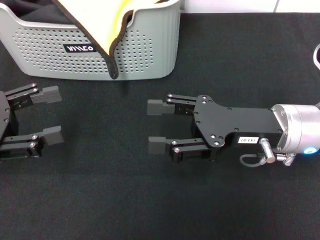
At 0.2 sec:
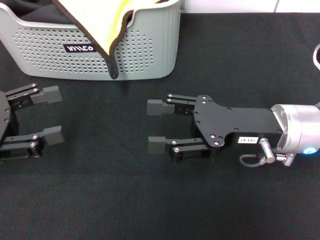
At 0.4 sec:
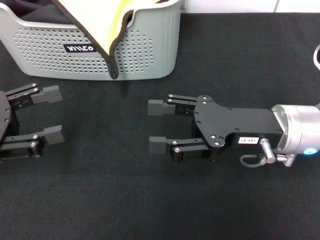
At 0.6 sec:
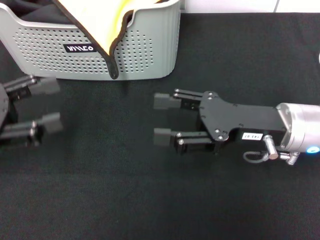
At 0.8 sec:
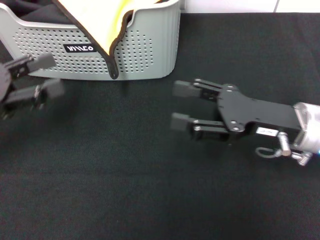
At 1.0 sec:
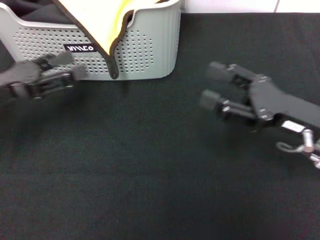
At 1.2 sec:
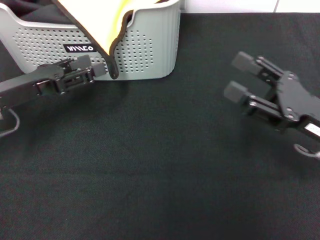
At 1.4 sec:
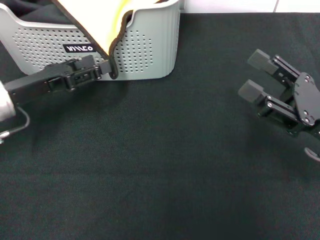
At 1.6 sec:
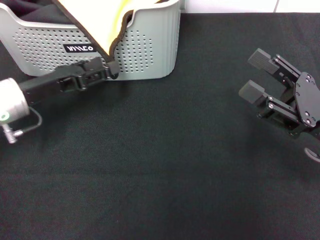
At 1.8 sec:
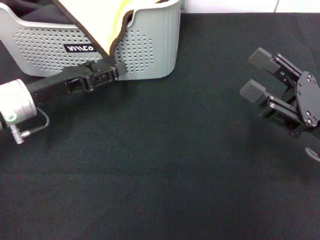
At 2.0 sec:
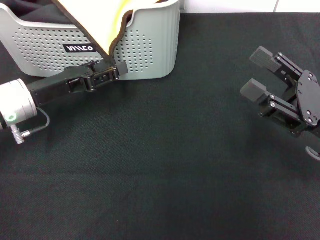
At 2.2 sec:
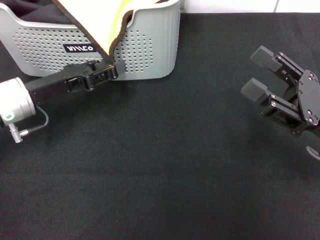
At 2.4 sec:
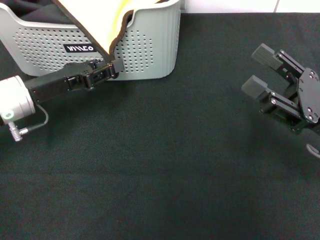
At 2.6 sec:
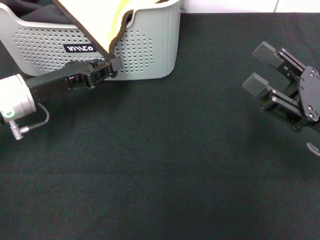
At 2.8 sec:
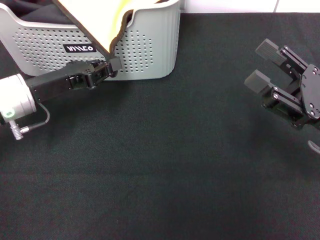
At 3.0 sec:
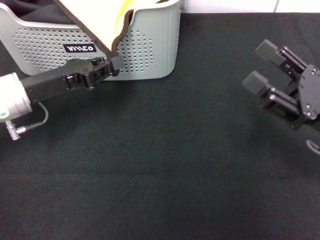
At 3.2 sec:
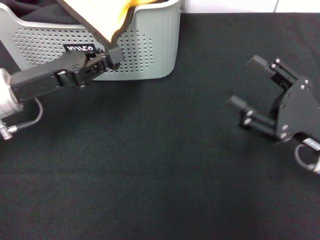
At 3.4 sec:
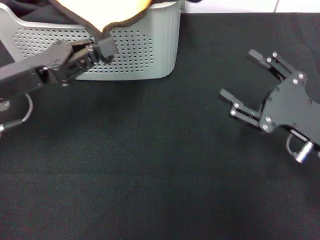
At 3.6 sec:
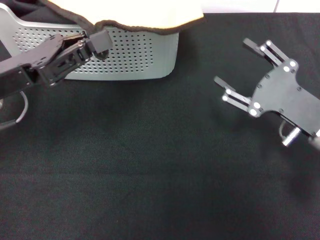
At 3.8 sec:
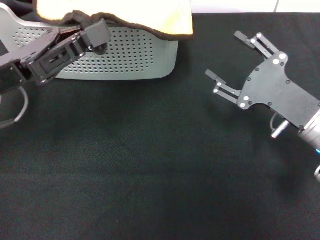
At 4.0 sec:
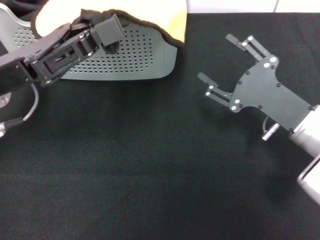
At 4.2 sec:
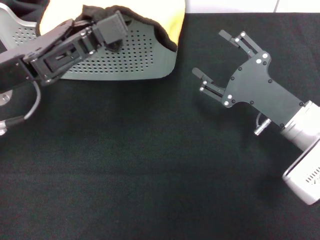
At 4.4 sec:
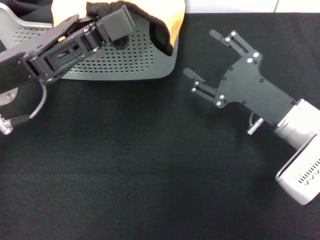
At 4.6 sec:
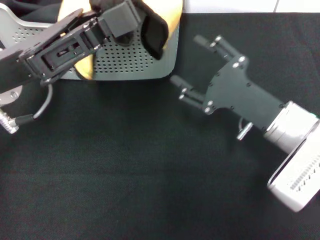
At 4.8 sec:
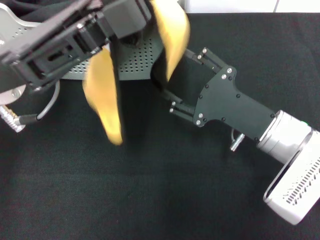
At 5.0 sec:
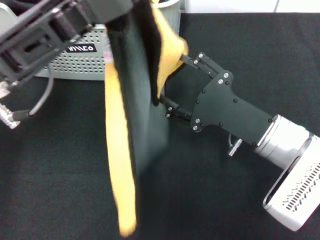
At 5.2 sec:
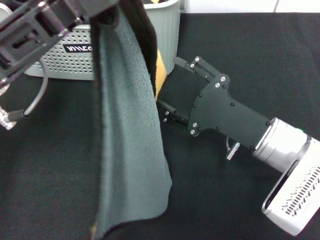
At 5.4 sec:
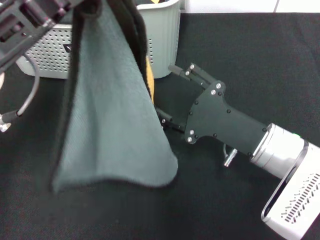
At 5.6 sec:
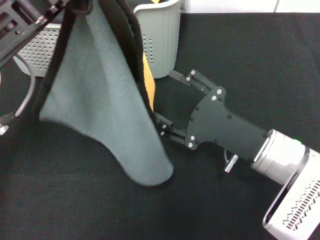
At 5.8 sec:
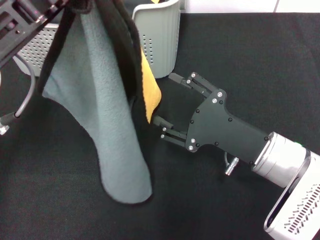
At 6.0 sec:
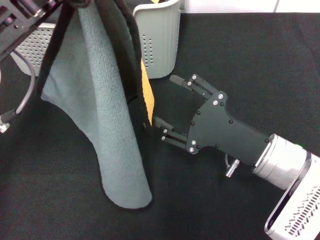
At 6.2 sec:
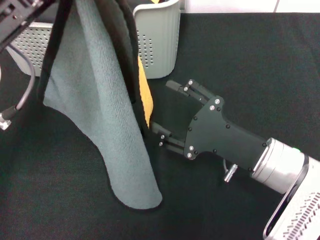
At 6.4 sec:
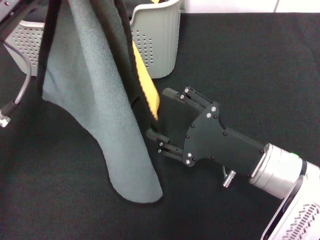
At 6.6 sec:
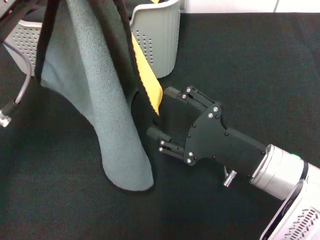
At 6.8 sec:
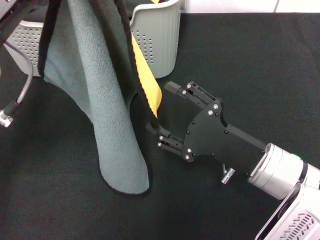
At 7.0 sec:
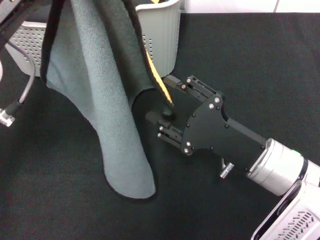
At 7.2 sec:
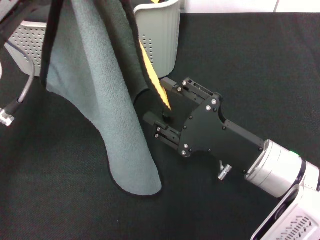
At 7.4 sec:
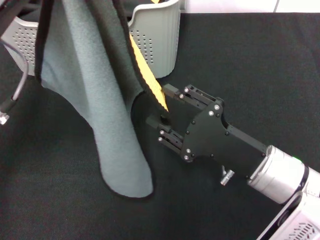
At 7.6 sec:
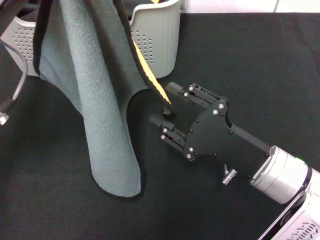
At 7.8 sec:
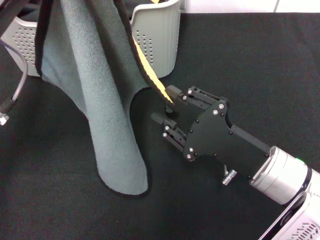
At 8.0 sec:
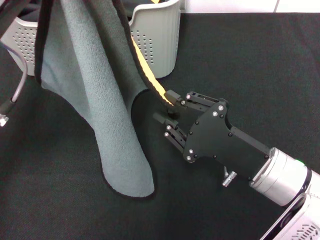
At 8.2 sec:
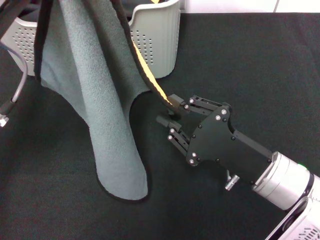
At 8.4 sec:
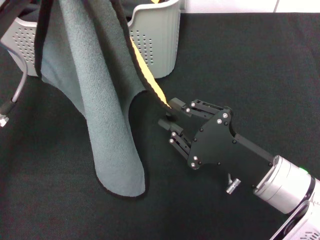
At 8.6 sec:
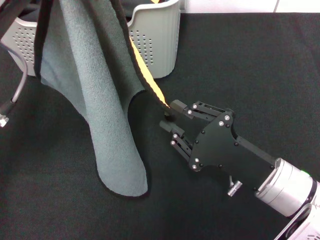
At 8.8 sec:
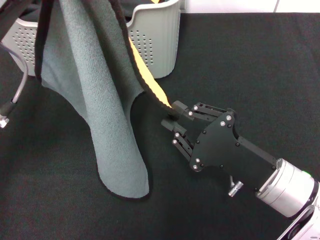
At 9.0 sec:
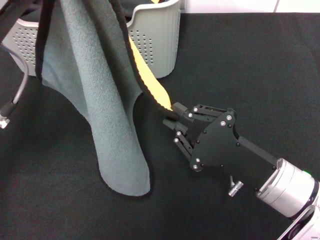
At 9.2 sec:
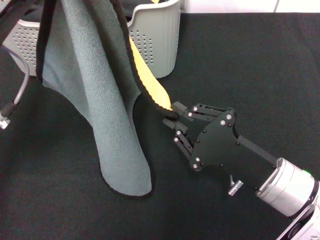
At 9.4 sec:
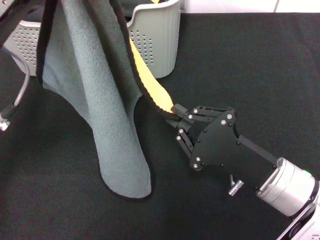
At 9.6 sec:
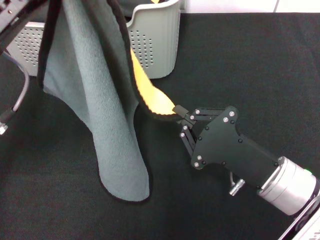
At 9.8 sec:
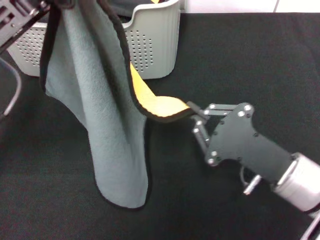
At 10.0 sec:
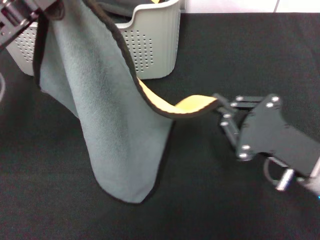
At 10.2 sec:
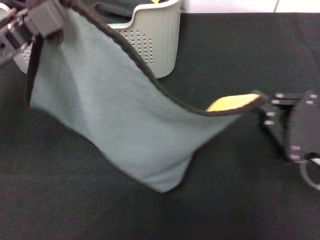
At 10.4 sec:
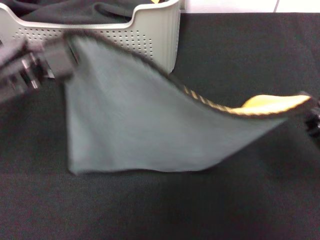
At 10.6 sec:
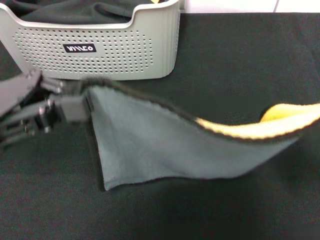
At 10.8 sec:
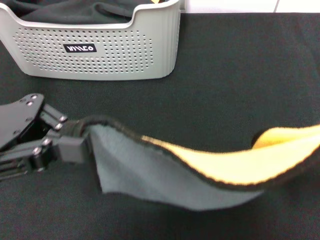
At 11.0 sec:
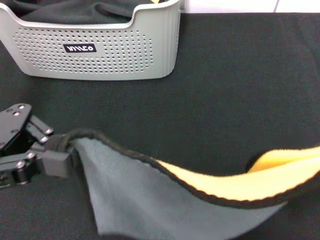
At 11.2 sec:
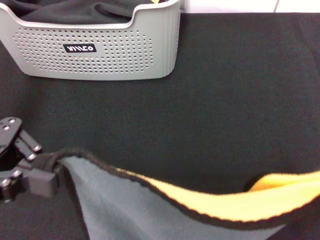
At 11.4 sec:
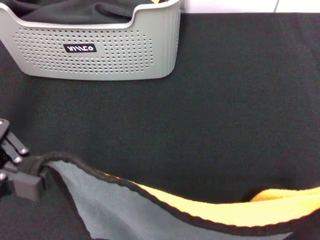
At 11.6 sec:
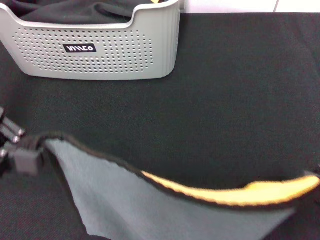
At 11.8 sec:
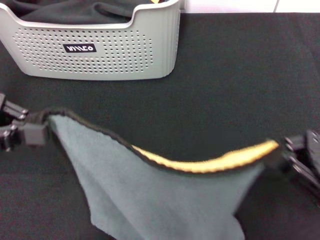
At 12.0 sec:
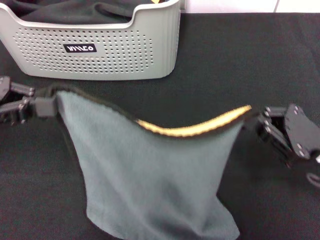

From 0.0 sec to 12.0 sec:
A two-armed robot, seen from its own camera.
Task of the whole recording: pick up the towel from the storage box and lay it flat on the black tablecloth.
Step, from 0.0 sec to 2.8 sec: Pick up a towel with the left gripper.
Step, from 3.0 sec to 9.6 sec: Spread the towel flat with the left gripper.
From 0.0 sec to 1.6 sec: The right gripper travels to the right by approximately 10 cm; the left gripper is displaced forward, to the right and downward by about 10 cm.
From 1.6 sec to 3.0 sec: The left gripper closes its fingers.
From 3.0 sec to 4.4 sec: The right gripper goes about 5 cm to the left. The left gripper moves upward, approximately 5 cm.
From 4.4 sec to 6.0 sec: The right gripper moves approximately 5 cm.
From 7.6 sec to 9.0 sec: The right gripper closes its fingers.
From 9.0 sec to 10.4 sec: The left gripper shifts roughly 5 cm to the left. The right gripper shifts some 10 cm to the right.
From 10.4 sec to 12.0 sec: The left gripper ends up about 5 cm from where it was.

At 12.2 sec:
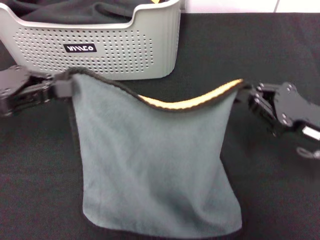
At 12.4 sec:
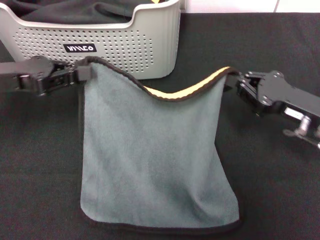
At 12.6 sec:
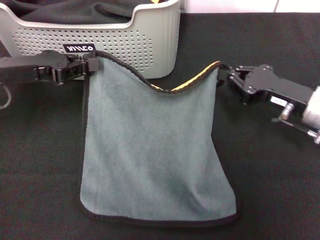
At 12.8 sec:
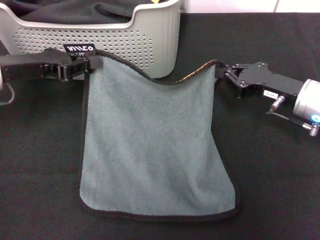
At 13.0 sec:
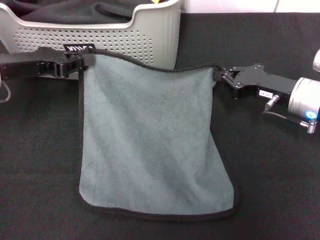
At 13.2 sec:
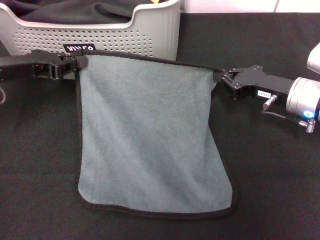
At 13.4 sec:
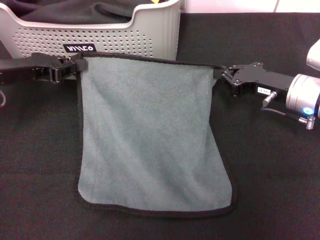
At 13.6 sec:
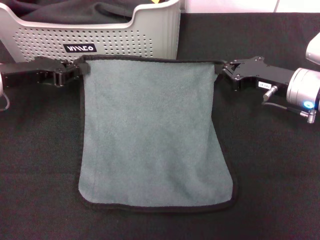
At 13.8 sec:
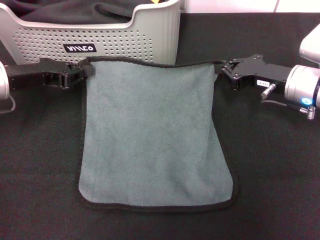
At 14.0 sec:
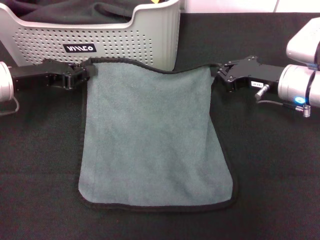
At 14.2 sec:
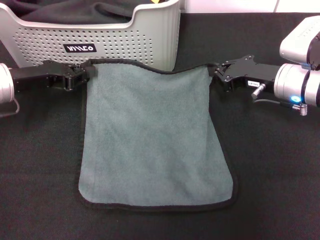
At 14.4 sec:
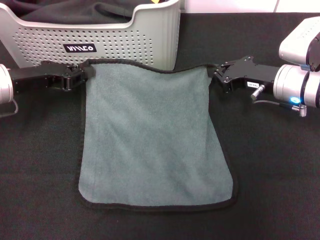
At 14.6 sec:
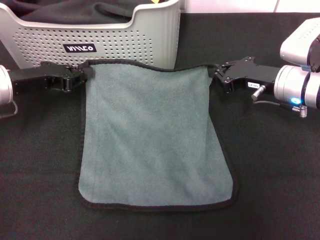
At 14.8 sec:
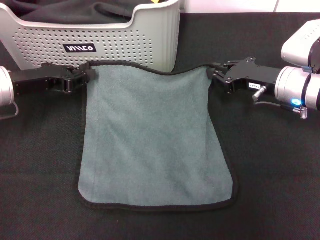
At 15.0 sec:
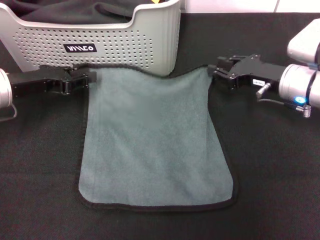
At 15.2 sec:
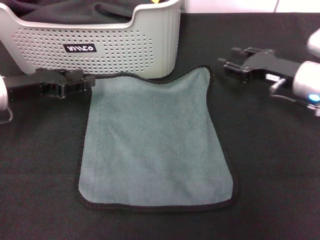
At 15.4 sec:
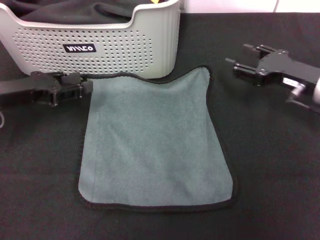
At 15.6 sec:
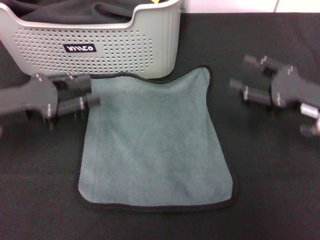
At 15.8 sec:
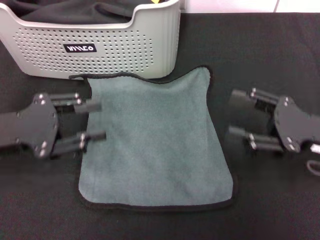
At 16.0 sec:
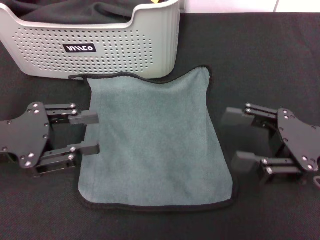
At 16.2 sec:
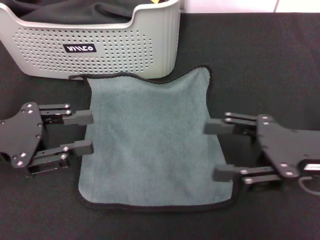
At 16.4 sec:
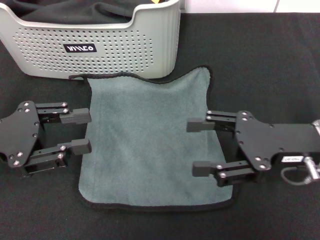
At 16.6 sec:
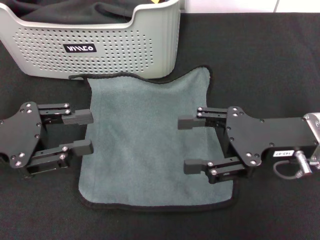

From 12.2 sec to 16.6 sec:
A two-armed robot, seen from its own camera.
Task of the whole recording: pick up the towel from the storage box and lay it flat on the black tablecloth.
Step, from 12.2 sec to 15.0 sec: Spread the towel flat with the right gripper.
From 12.2 sec to 13.6 sec: The right gripper shifts roughly 10 cm forward, while the left gripper travels forward and downward by about 10 cm.
From 13.6 sec to 15.2 sec: The grippers stay close to where they were, moving slightly.
From 15.2 sec to 16.6 sec: Both grippers travel together backward, about 10 cm. The right gripper opens.
